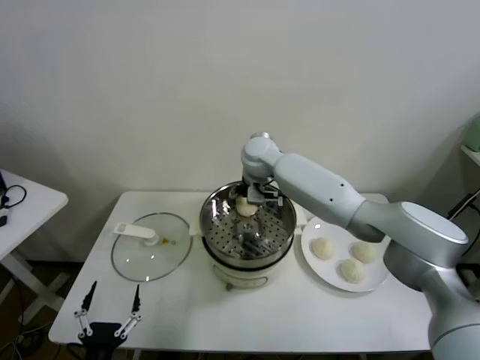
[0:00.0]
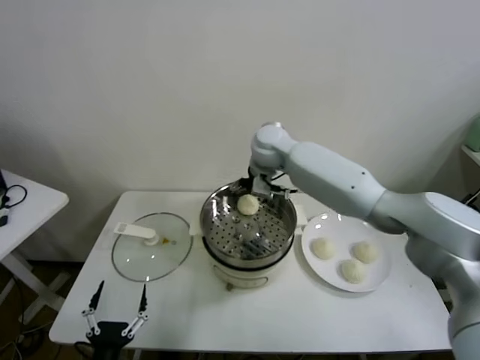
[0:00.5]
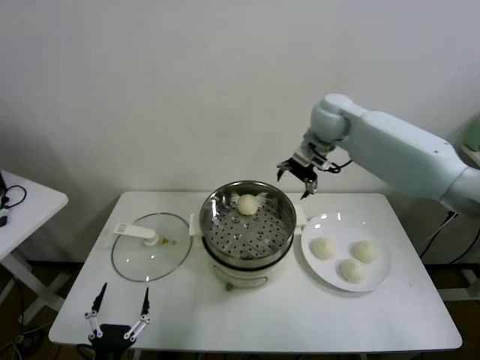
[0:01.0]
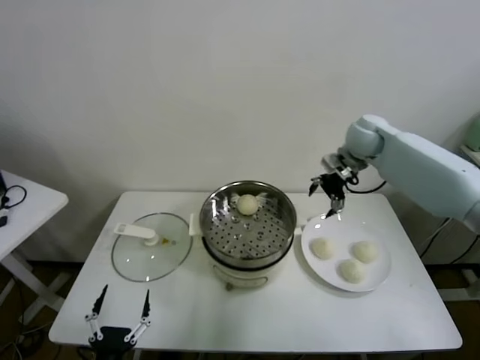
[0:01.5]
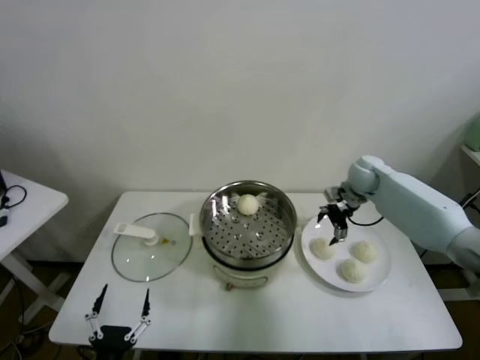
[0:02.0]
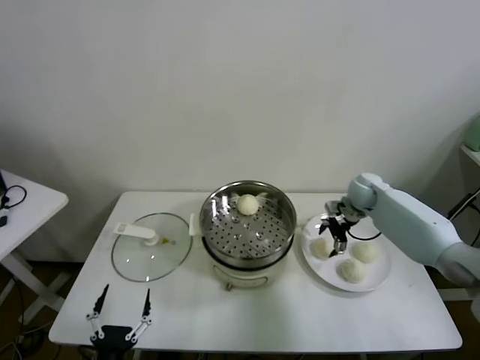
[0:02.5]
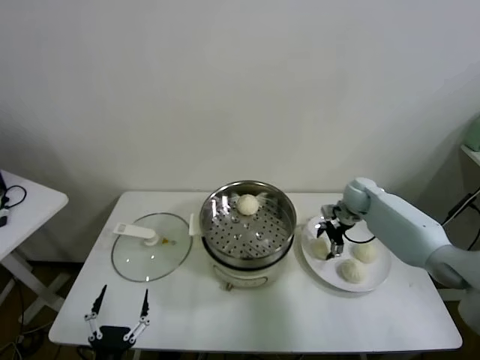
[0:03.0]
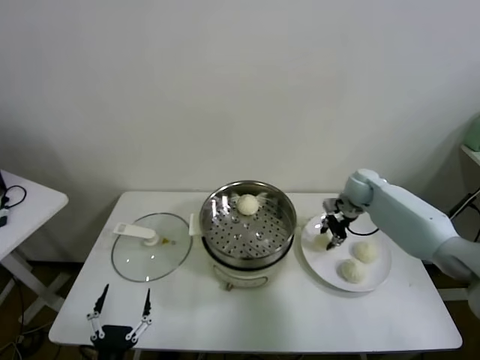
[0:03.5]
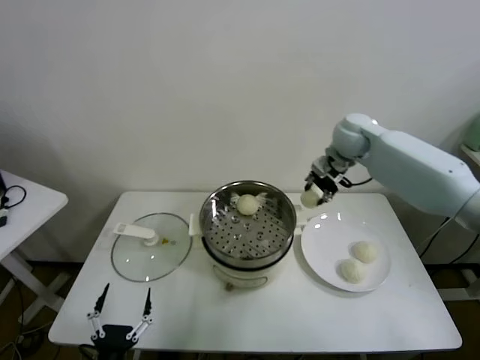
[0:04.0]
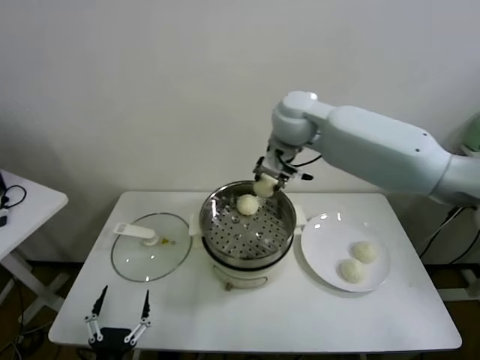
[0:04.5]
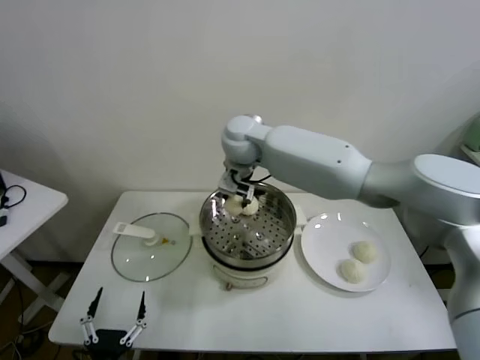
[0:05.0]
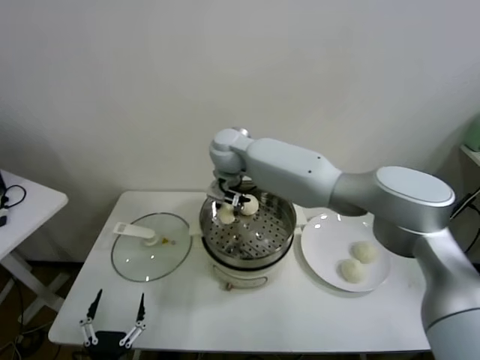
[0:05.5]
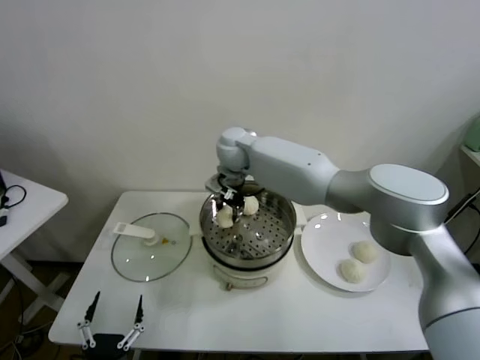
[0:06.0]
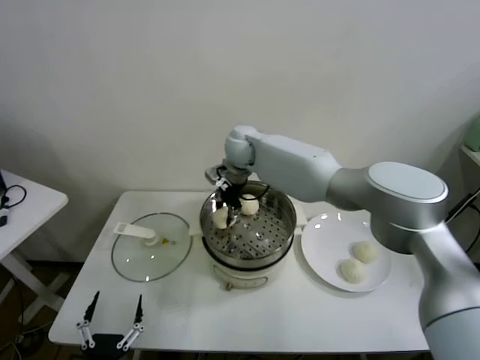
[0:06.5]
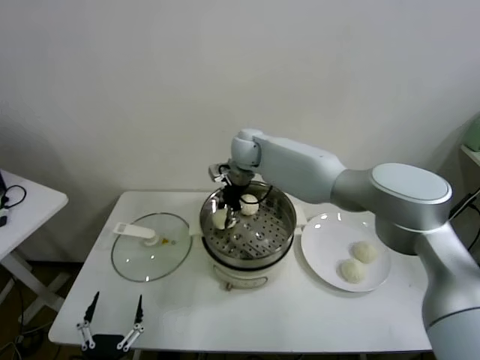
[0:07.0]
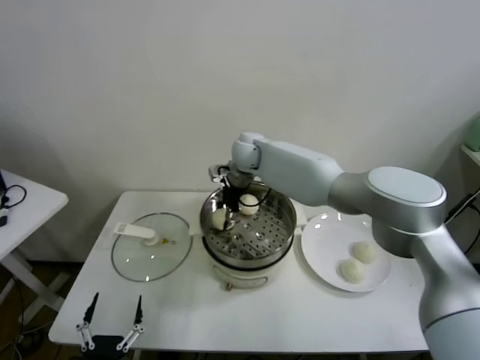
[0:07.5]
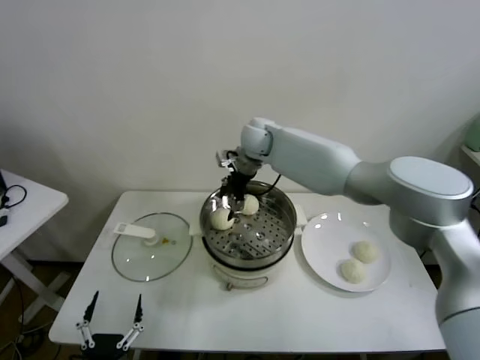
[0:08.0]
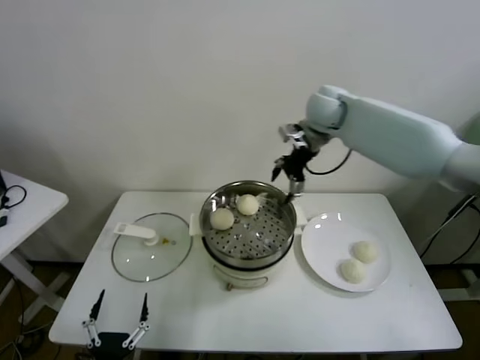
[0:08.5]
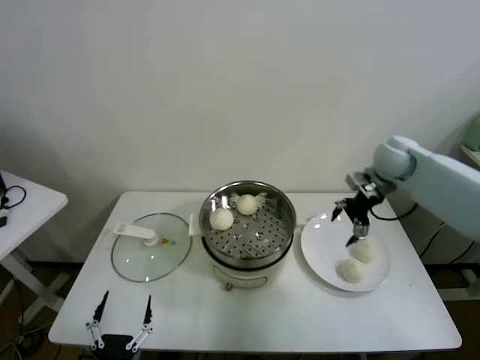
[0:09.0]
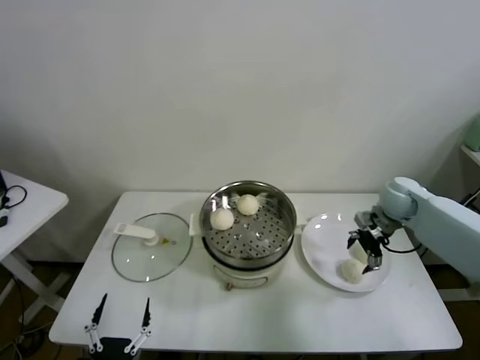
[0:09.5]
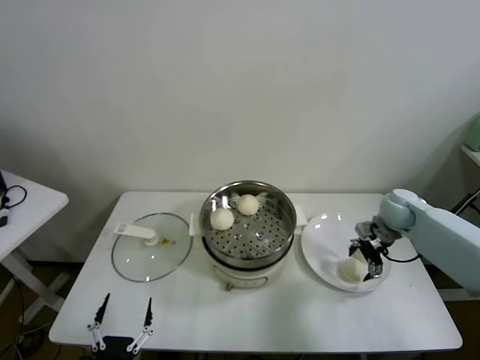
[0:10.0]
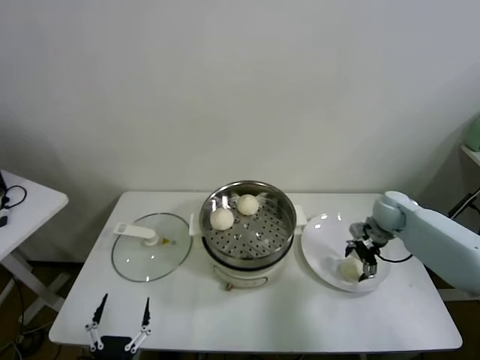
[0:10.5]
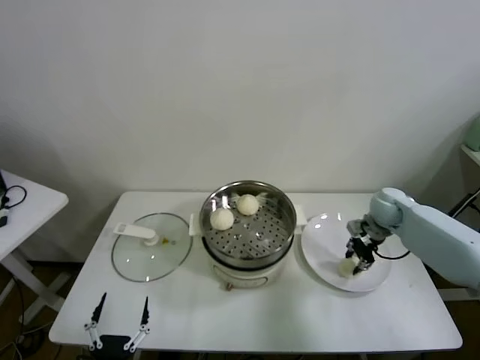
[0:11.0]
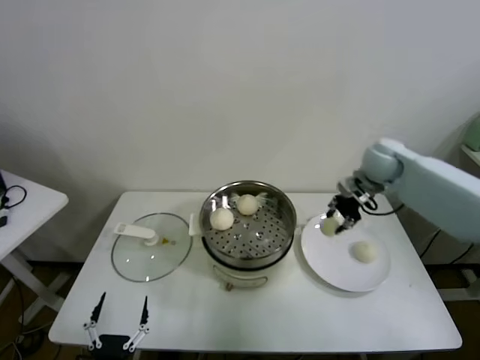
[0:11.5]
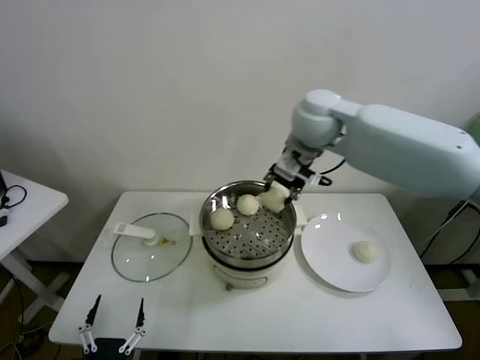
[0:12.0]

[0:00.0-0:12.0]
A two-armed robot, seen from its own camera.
Task of the whole recording: take steamed baozi put them in steamer.
Step, 0:00.5 to 0:03.0: Grasp the baozi in the plate with right gripper.
Step, 0:03.5 to 0:07.5: Place the baozi on the steamer with right gripper.
Step, 0:08.0 to 0:10.5: Grasp the baozi in the plate with right gripper.
0:00.0 to 0:02.0: The right gripper heads to the right, covering roughly 30 cm.
0:02.0 to 0:04.0: The right gripper is displaced upward and to the left by some 20 cm, and closes its fingers.
0:04.0 to 0:06.0: The right gripper is displaced to the left by approximately 25 cm.
0:06.0 to 0:08.0: The right gripper shifts about 5 cm to the right, and opens up.
0:08.0 to 0:10.0: The right gripper heads to the right and downward, covering about 40 cm.
0:10.0 to 0:12.0: The right gripper goes some 35 cm to the left and upward, and closes its fingers.

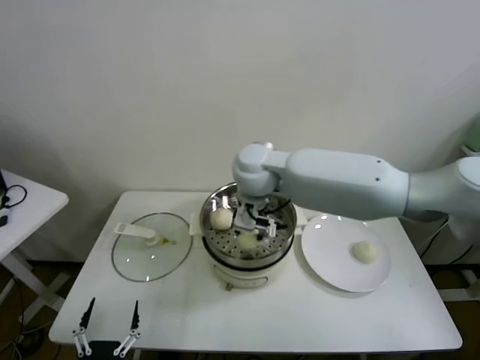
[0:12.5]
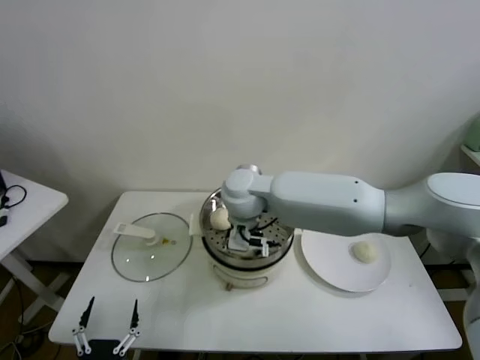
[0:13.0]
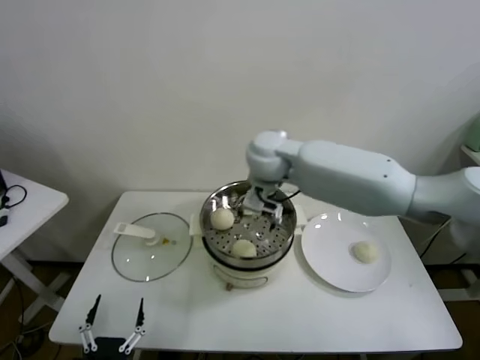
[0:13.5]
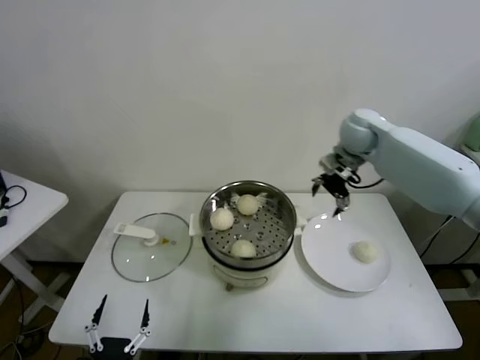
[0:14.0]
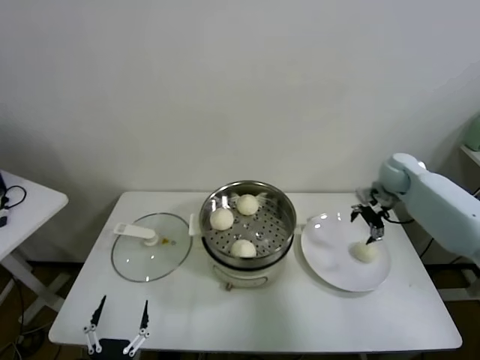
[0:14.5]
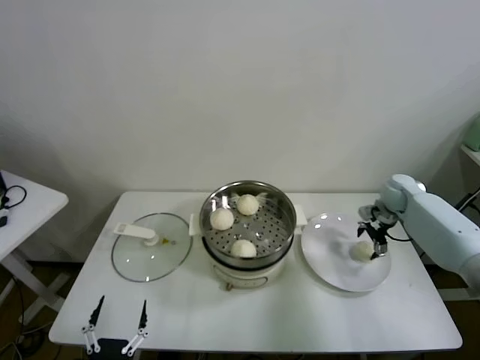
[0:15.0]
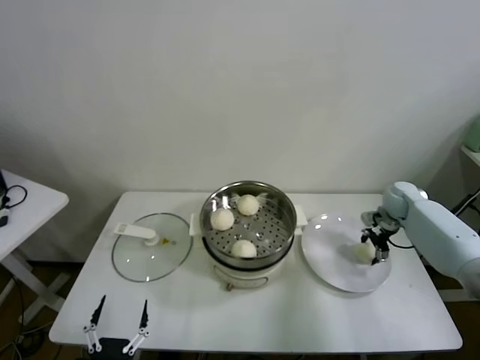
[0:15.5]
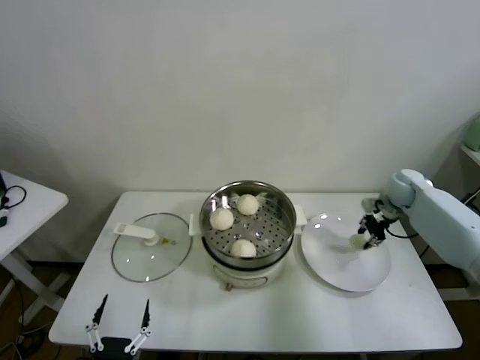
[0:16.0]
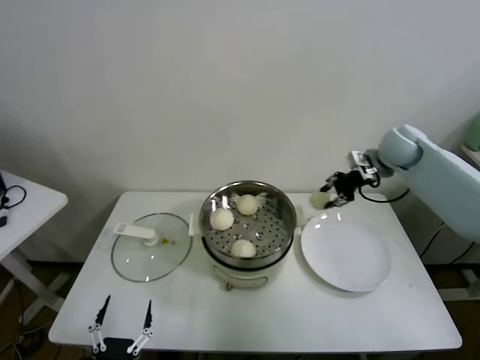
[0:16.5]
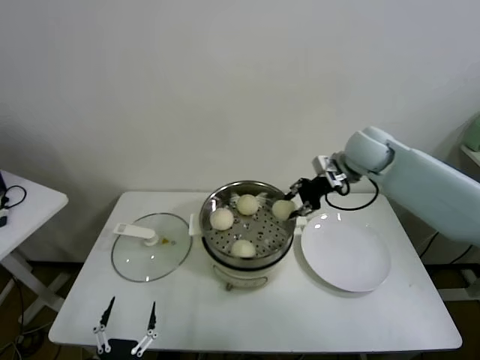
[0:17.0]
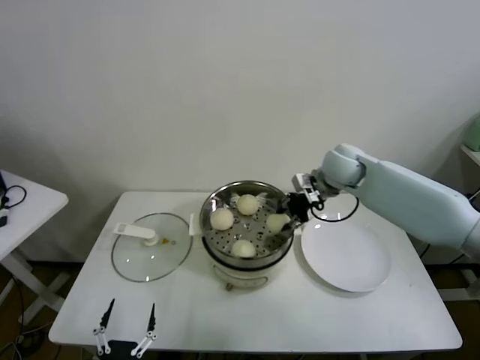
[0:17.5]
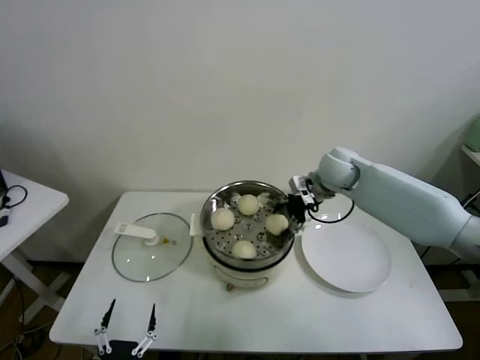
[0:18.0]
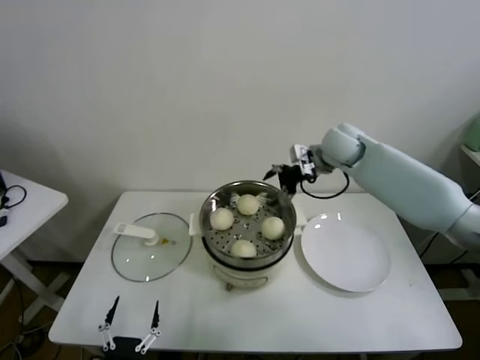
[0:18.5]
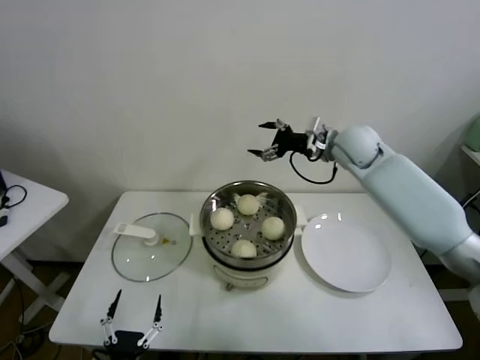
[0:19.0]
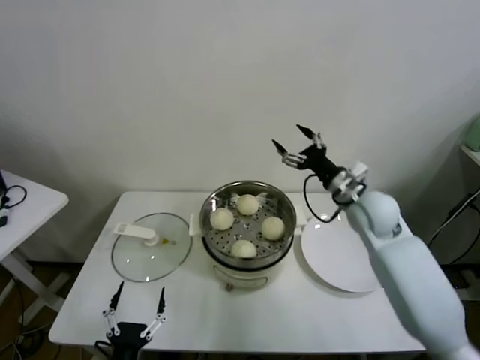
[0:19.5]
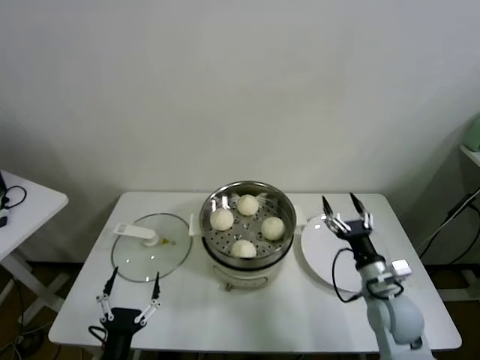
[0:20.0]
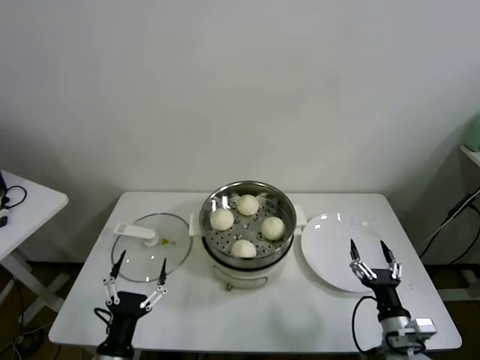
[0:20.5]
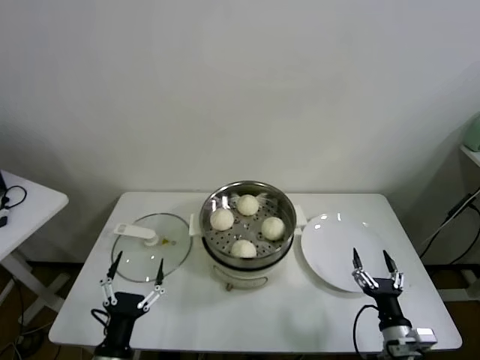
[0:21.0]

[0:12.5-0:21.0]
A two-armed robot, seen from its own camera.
Task of the whole recording: take steamed baozi put them in steamer.
Step, 0:13.5 to 0:15.5: Grasp the baozi in the plate with right gripper.
Step, 0:16.0 to 0:18.0: Place the baozi on the steamer with right gripper.
0:12.5 to 0:14.5: The right gripper is displaced to the right by roughly 35 cm, and opens.
0:14.5 to 0:16.5: The right gripper moves upward, roughly 10 cm, and closes.
0:16.5 to 0:19.0: The right gripper moves to the left, roughly 10 cm, and opens its fingers.
0:19.0 to 0:21.0: The left gripper is displaced forward and upward by approximately 10 cm. Meanwhile the right gripper is displaced backward and downward by roughly 50 cm.
